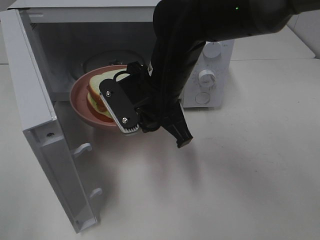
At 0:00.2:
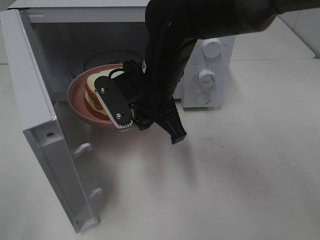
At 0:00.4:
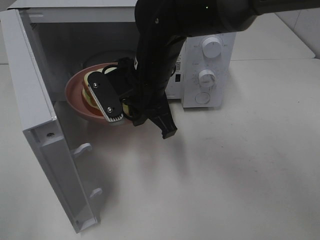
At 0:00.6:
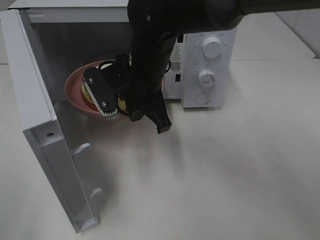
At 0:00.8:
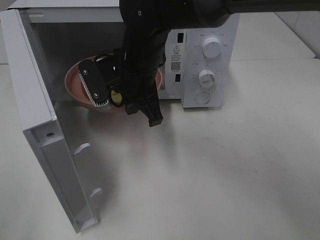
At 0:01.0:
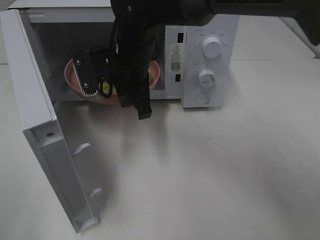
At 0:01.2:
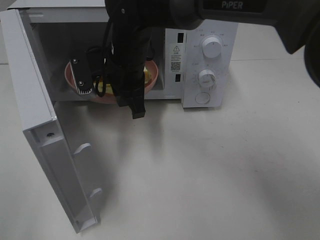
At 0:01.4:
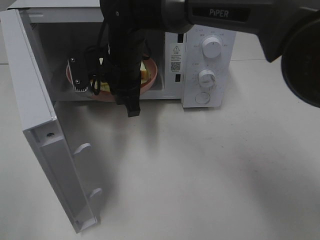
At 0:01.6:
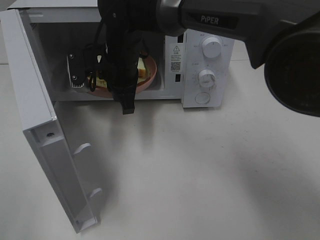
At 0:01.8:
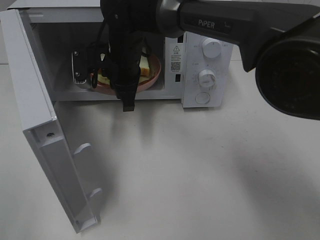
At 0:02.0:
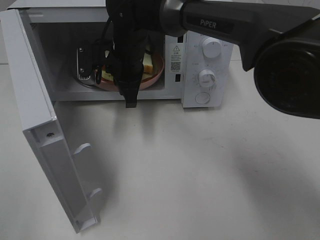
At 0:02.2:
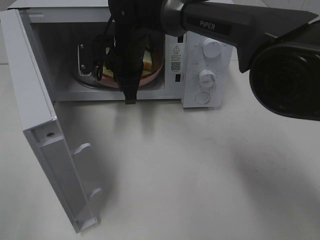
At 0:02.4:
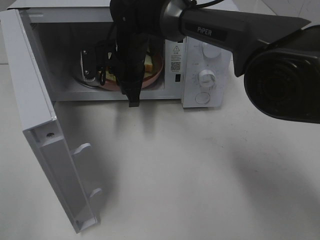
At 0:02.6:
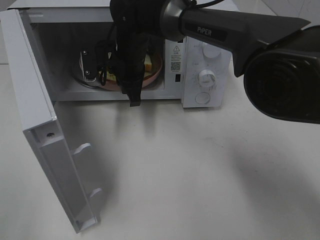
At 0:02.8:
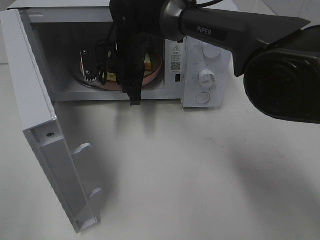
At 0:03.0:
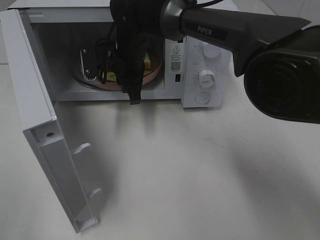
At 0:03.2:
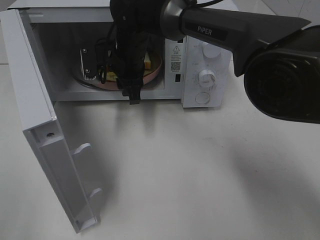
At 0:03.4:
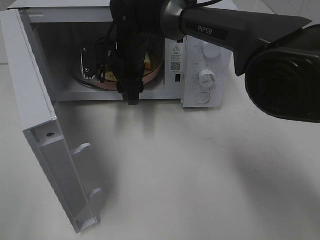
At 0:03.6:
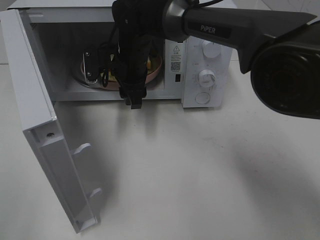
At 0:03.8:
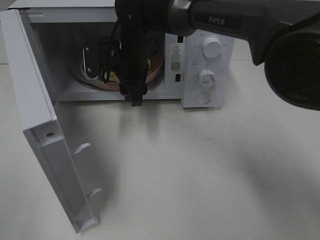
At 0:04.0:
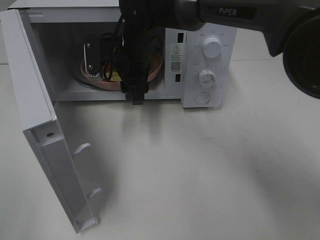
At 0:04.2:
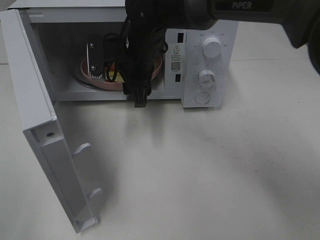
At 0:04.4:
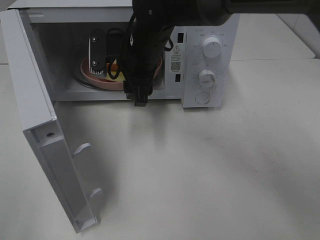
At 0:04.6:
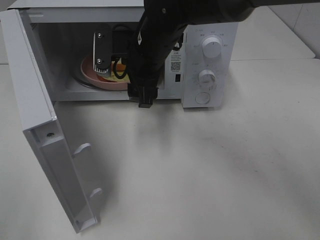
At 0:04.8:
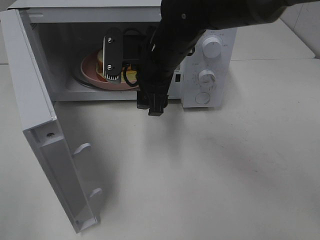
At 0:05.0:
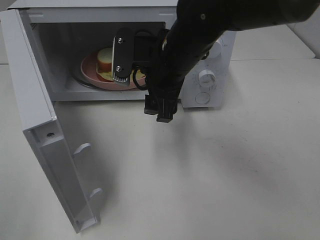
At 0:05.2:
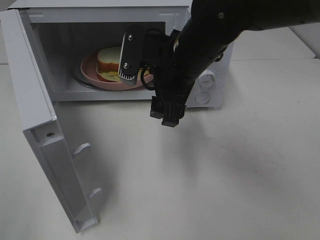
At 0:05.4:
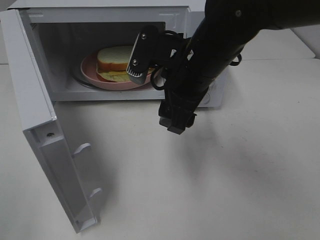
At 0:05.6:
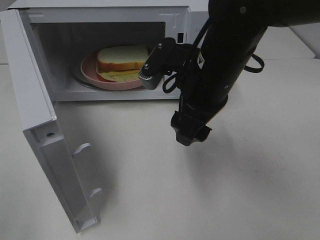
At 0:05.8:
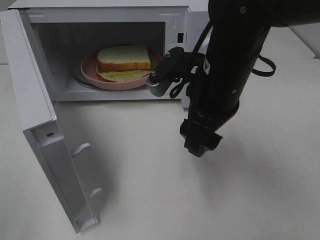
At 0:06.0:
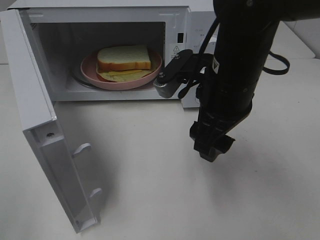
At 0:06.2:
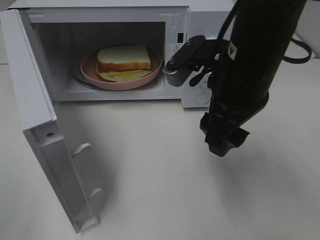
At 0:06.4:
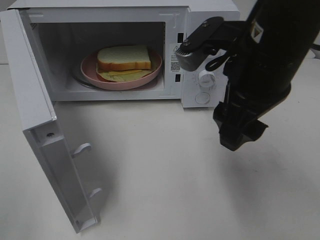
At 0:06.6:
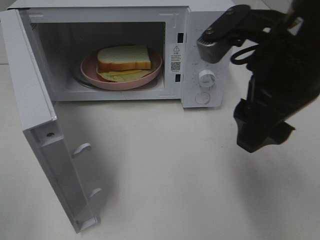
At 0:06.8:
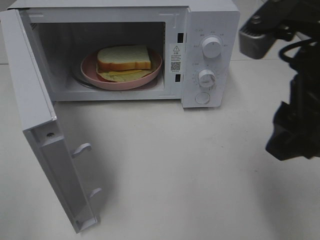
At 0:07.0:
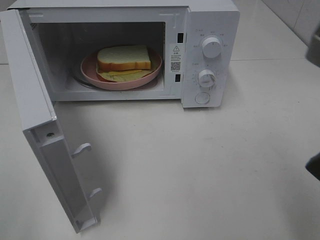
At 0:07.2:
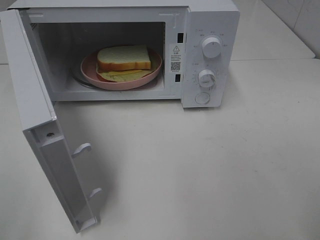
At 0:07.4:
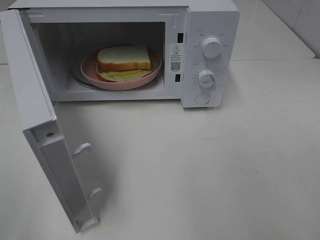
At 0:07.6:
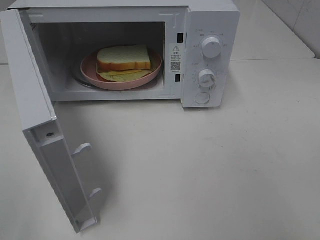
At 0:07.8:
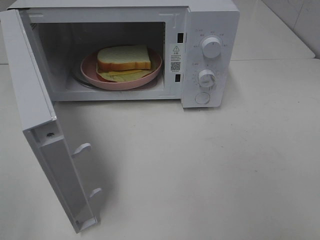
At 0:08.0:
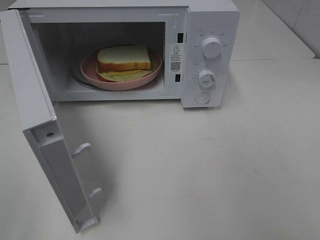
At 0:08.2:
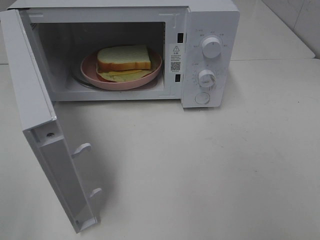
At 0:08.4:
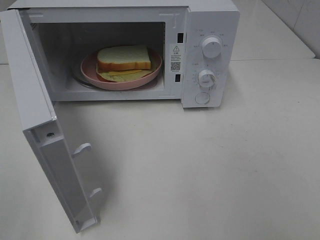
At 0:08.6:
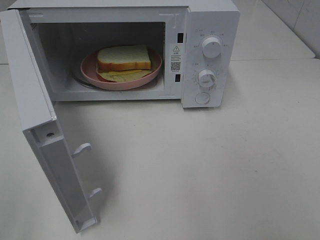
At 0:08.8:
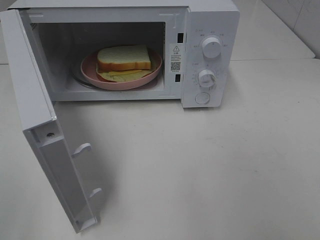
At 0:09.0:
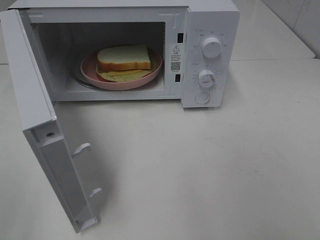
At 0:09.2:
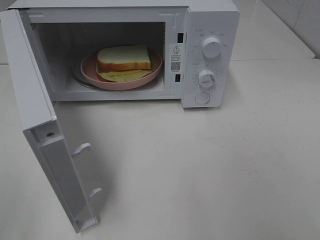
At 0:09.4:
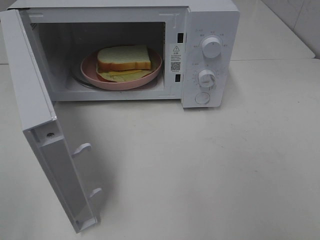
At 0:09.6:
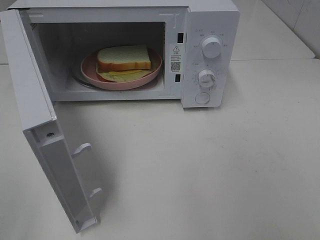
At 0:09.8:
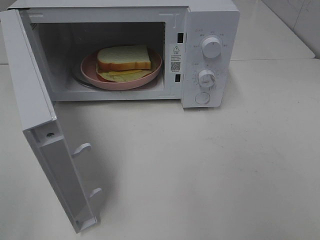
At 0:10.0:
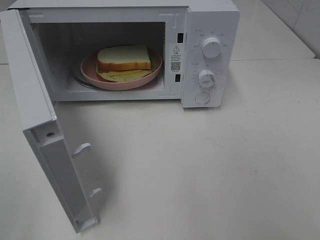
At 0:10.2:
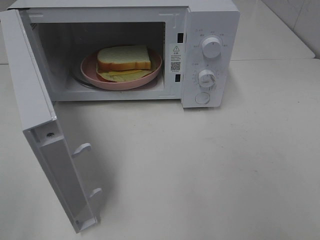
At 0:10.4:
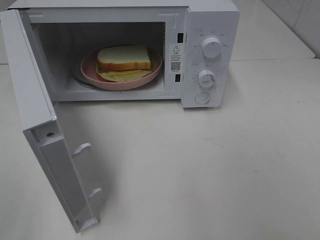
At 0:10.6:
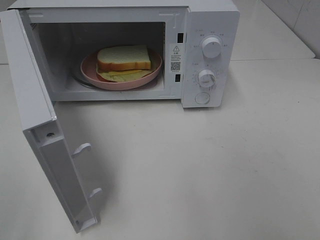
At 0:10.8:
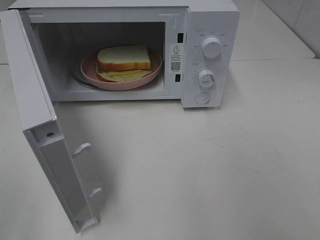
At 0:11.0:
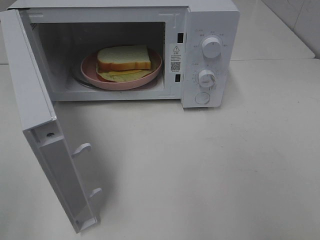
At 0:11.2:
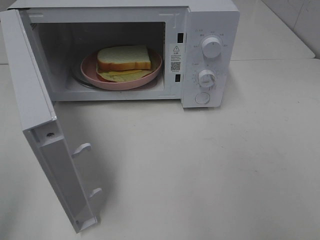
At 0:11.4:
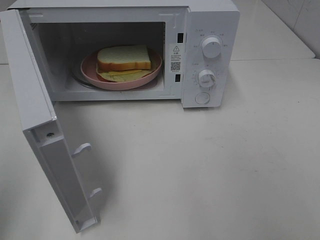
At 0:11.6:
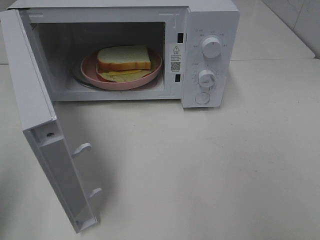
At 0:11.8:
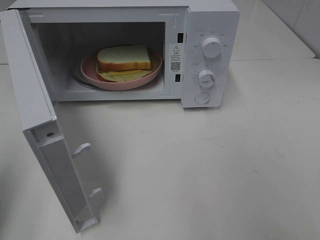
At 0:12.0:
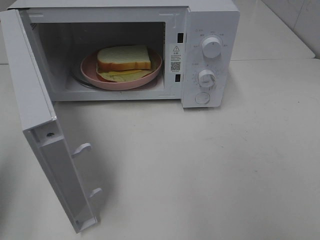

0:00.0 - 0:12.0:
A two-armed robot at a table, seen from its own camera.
Task of the whole recording: Heat Sandwich.
Step, 0:00.0 - 0:04.2: Right hand: place the plate in the microwave.
0:00.0 - 0:01.6: The right gripper heads forward and to the left, covering approximately 10 cm.
0:01.6 - 0:03.0: The grippers move only a little.
0:03.0 - 0:04.4: The right gripper shifts by roughly 5 cm, and opens its fingers.
0:04.4 - 0:06.0: The right gripper is displaced backward and to the right by roughly 15 cm.
0:06.0 - 0:07.6: The right gripper heads backward and to the right, covering about 25 cm.
0:09.0 - 0:10.4: Both grippers stay about where they are.
0:10.4 - 0:12.0: The left gripper heads forward, covering approximately 15 cm, and closes its fingers.

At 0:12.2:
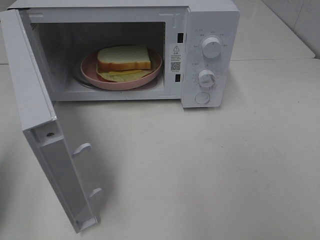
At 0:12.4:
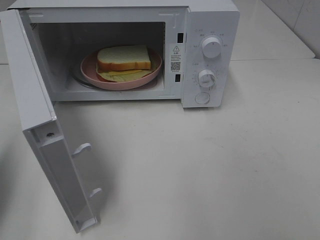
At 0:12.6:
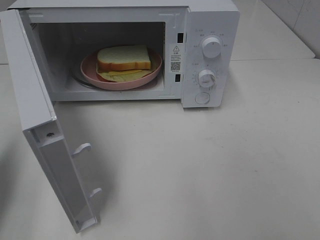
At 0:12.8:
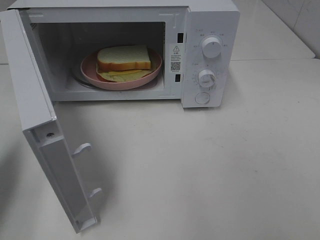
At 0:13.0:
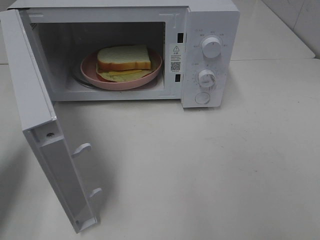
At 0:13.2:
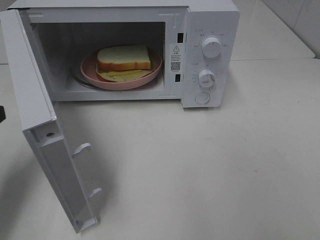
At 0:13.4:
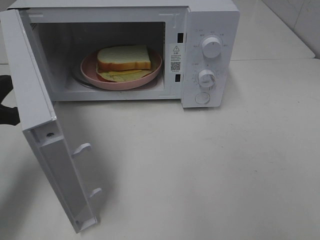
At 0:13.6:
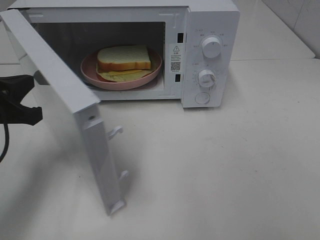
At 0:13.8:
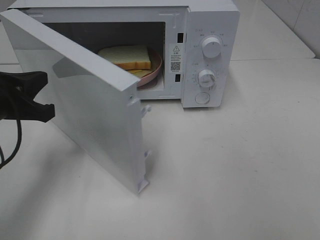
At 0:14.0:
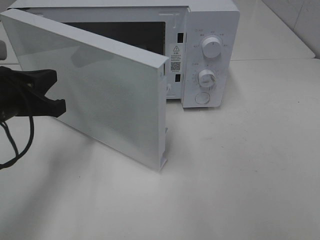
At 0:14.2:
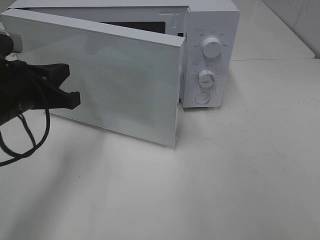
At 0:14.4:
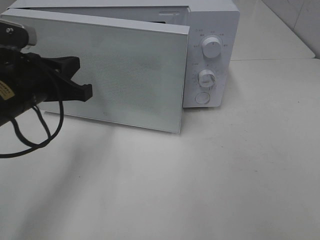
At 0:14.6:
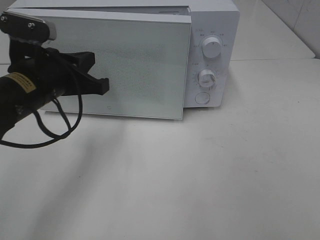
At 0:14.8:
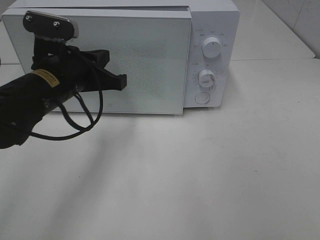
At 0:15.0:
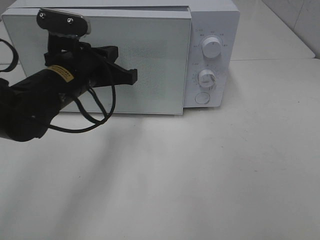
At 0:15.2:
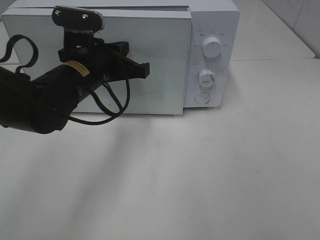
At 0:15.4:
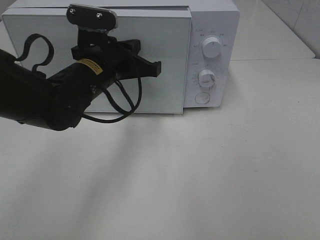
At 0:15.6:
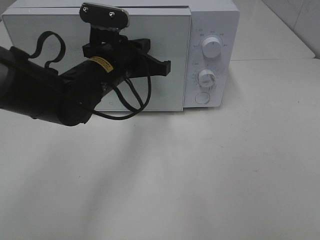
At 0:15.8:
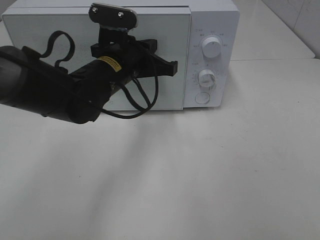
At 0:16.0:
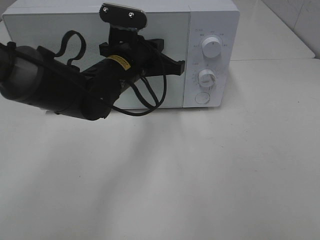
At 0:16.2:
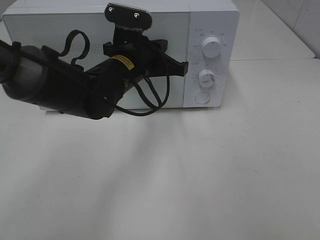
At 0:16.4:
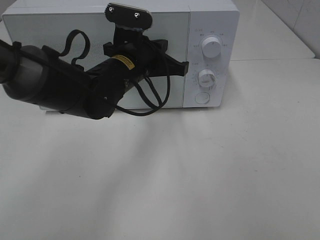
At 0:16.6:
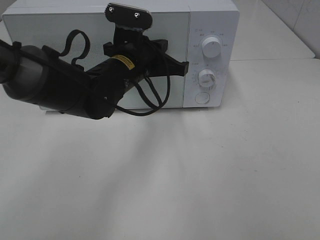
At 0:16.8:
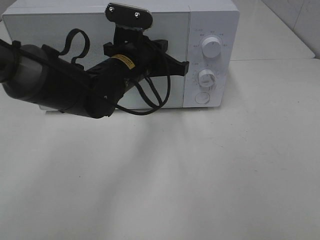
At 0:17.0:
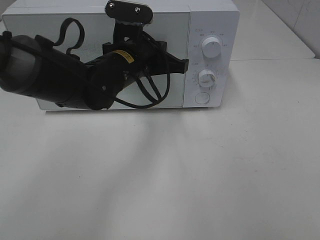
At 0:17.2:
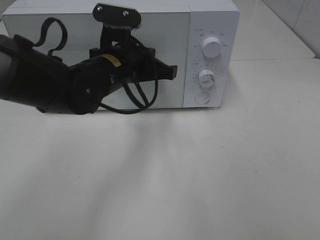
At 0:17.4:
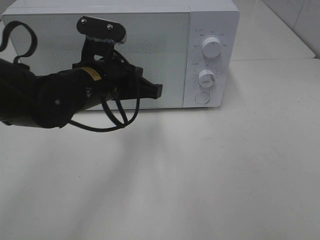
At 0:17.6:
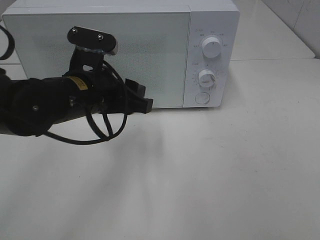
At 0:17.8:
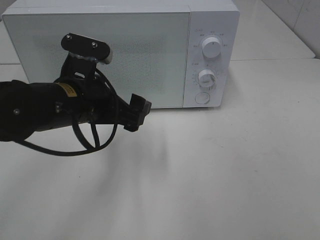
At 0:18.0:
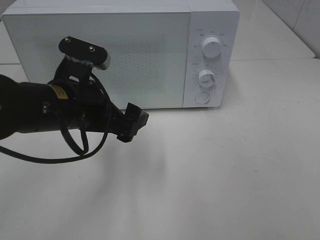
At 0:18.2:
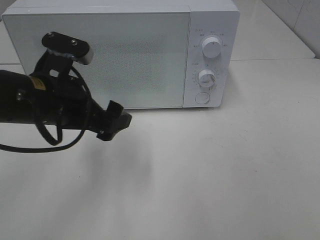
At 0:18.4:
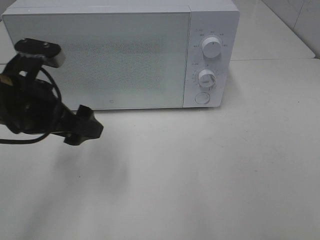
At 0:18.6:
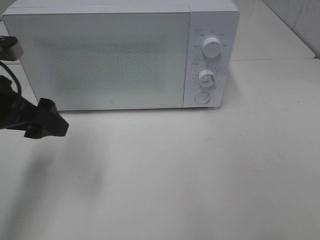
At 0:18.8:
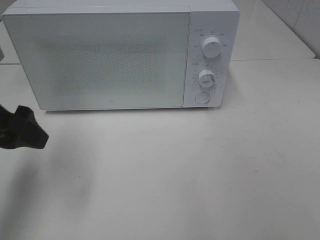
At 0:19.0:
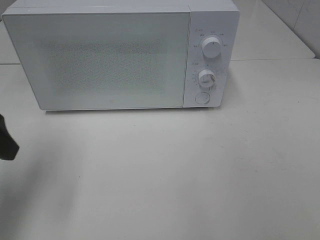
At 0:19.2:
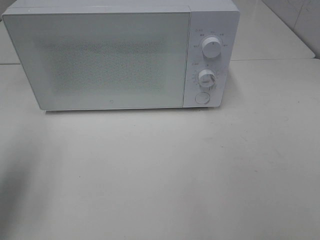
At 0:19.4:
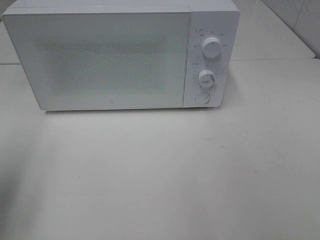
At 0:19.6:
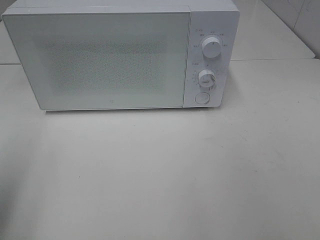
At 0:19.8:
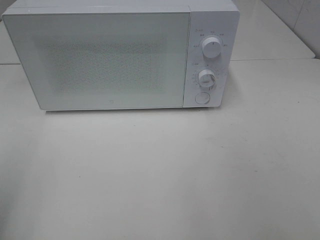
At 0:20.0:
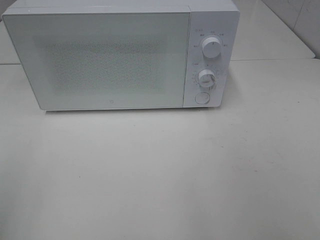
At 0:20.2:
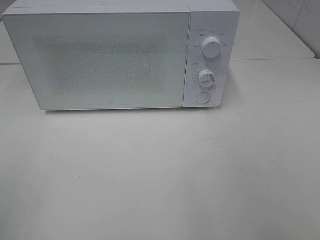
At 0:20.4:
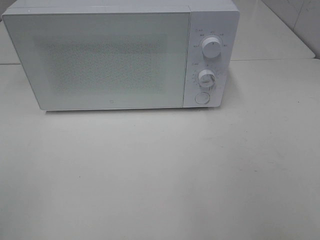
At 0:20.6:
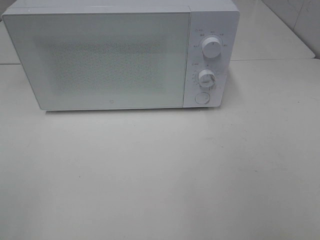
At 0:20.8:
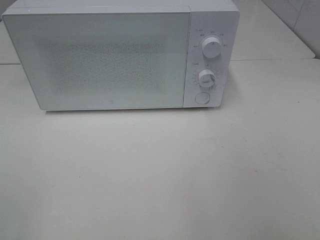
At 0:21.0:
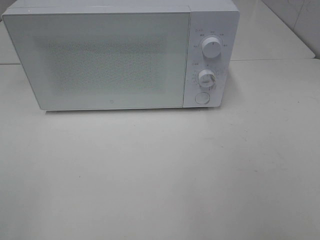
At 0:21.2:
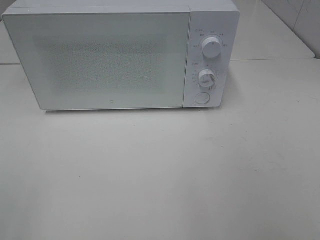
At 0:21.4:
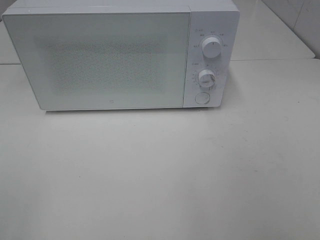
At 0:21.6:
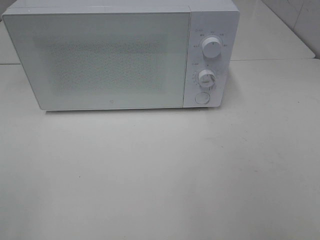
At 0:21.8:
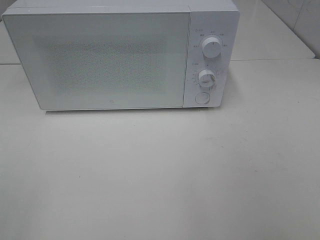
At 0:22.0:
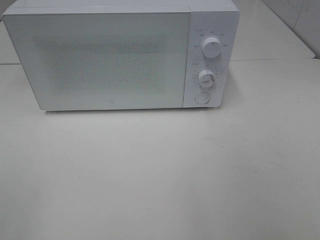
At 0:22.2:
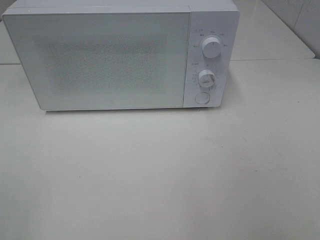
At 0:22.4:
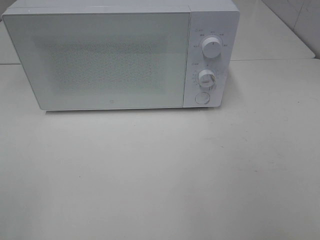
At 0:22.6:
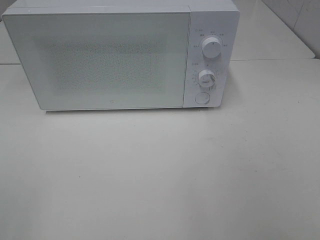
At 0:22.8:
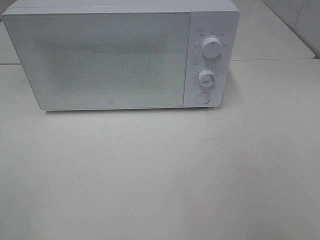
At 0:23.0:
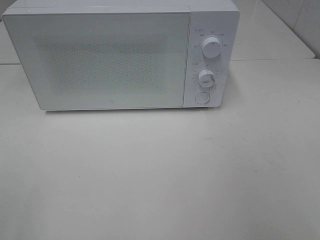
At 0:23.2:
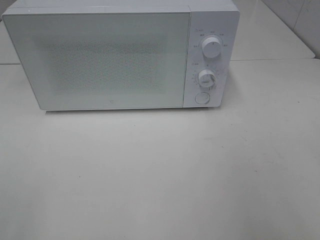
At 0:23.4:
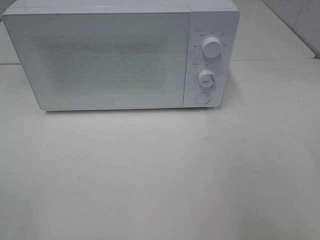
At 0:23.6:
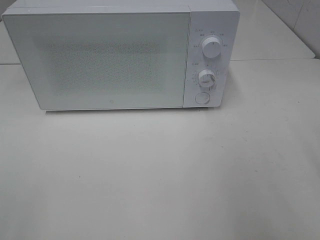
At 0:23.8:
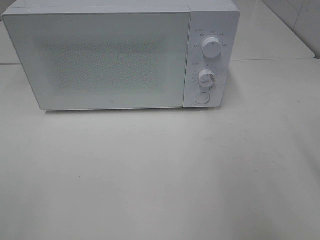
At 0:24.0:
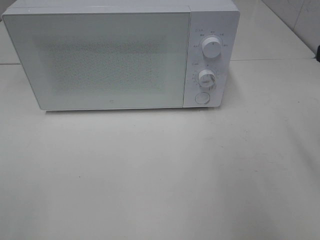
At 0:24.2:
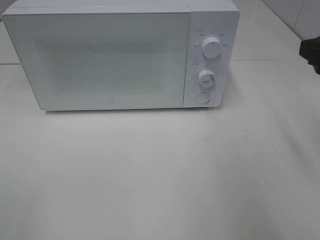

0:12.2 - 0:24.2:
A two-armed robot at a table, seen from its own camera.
Task of the whole recording: Heat Sandwich.
Step, 0:12.2 - 0:17.4: Left hand: close the microwave door.
0:12.2 - 0:13.8: The left gripper is displaced to the right, forward and downward by about 15 cm.
0:13.8 - 0:15.2: The left gripper travels to the right and forward by roughly 15 cm.
0:15.2 - 0:16.6: The left gripper travels to the right by roughly 5 cm.
0:16.6 - 0:18.2: The left gripper heads backward and to the left, covering about 15 cm, and opens up.
0:18.2 - 0:19.8: The left gripper goes about 25 cm to the left, backward and upward.
0:21.2 - 0:22.6: The two grippers keep their place.
0:22.6 - 0:24.2: The right gripper moves forward, approximately 20 cm.
